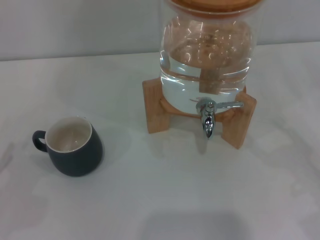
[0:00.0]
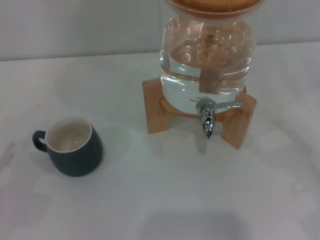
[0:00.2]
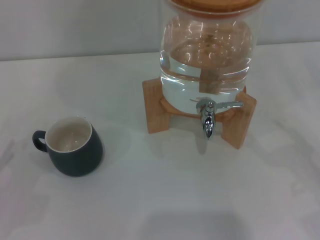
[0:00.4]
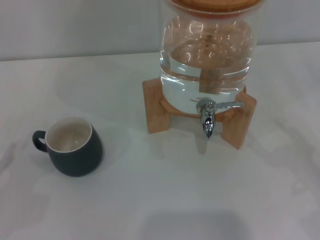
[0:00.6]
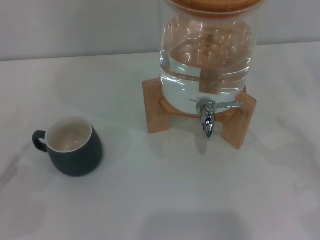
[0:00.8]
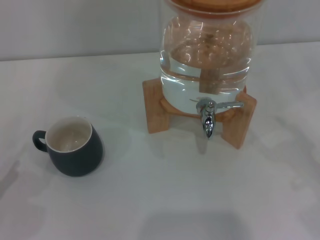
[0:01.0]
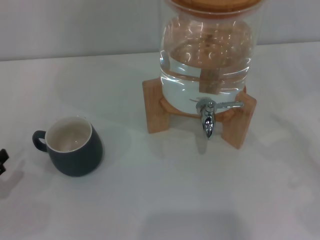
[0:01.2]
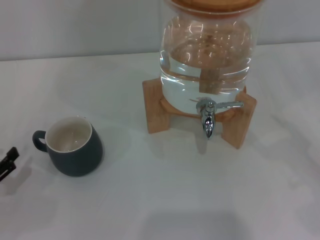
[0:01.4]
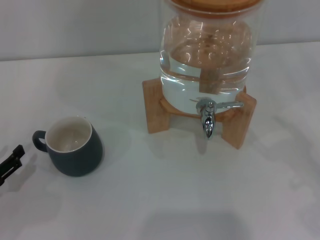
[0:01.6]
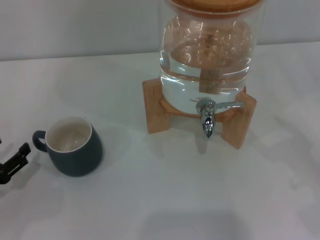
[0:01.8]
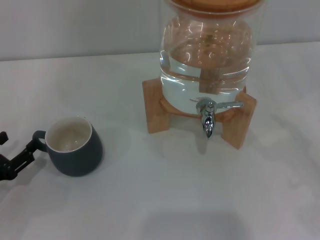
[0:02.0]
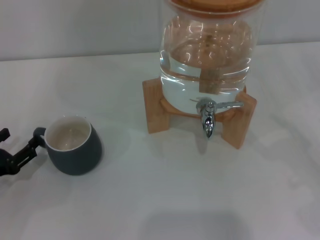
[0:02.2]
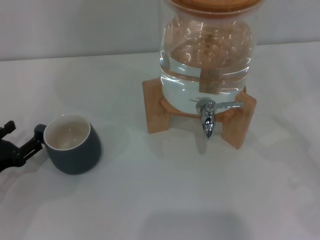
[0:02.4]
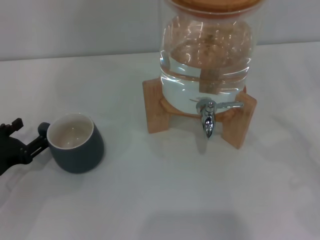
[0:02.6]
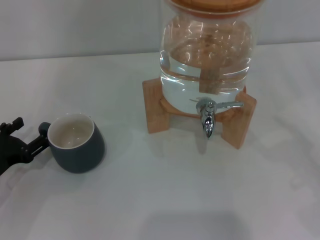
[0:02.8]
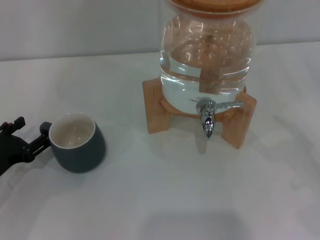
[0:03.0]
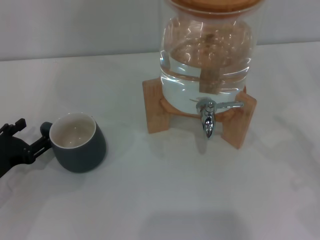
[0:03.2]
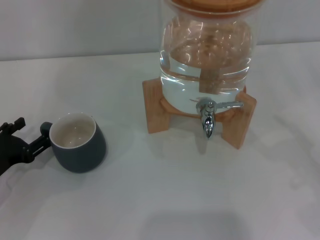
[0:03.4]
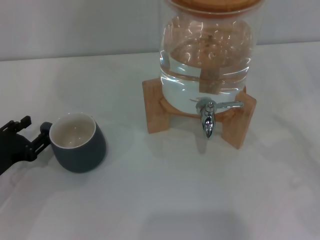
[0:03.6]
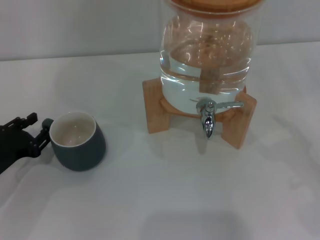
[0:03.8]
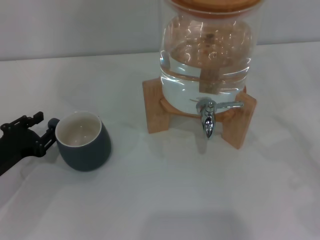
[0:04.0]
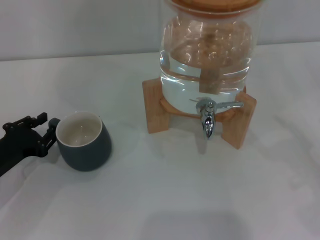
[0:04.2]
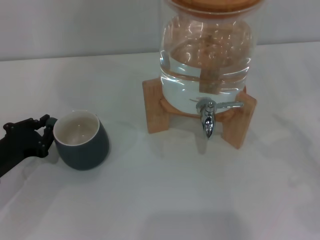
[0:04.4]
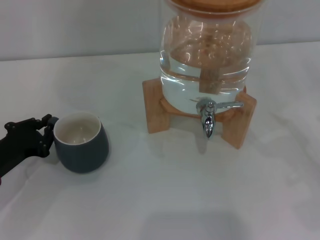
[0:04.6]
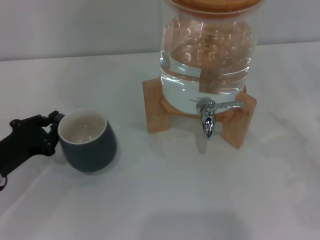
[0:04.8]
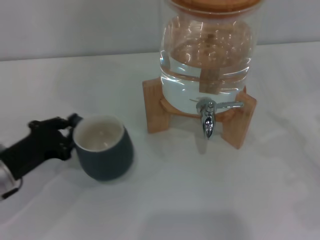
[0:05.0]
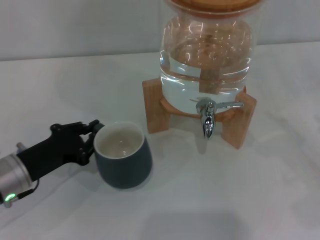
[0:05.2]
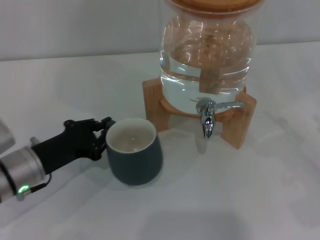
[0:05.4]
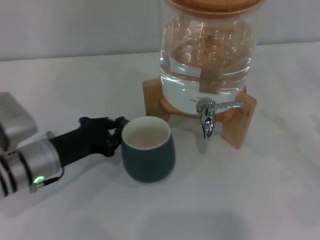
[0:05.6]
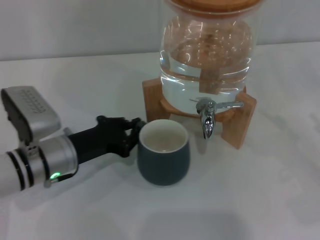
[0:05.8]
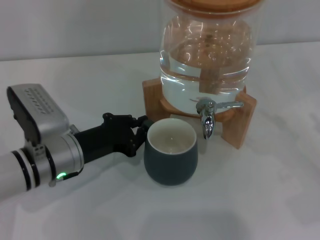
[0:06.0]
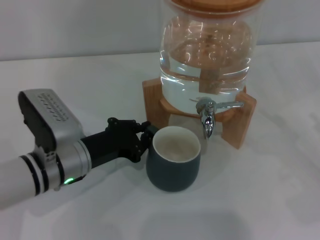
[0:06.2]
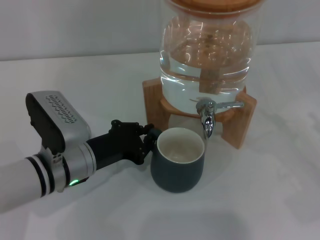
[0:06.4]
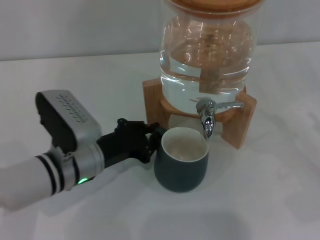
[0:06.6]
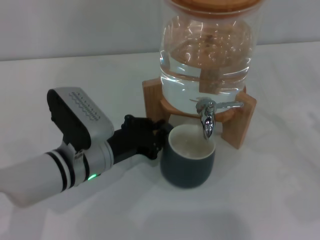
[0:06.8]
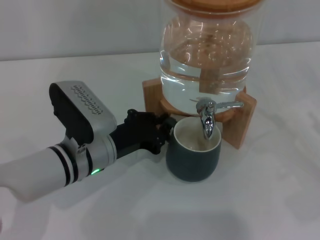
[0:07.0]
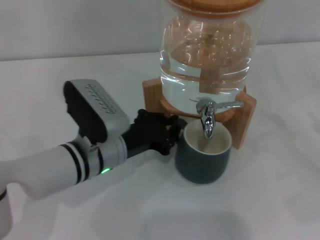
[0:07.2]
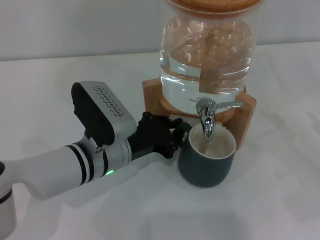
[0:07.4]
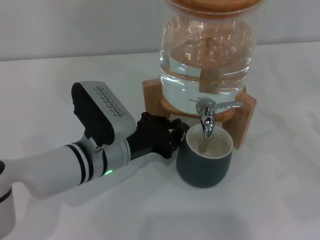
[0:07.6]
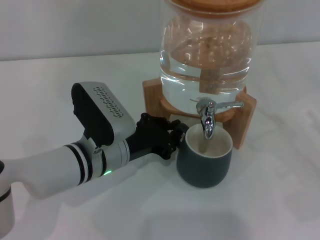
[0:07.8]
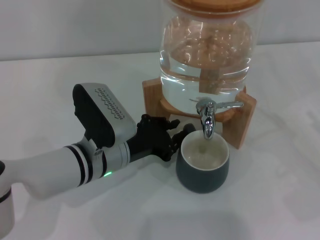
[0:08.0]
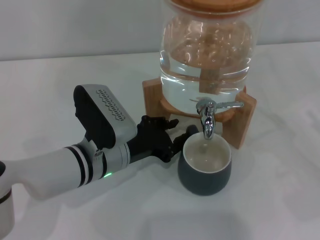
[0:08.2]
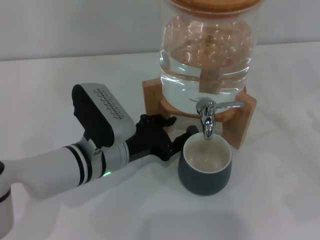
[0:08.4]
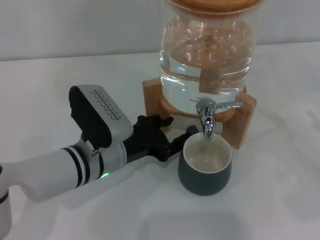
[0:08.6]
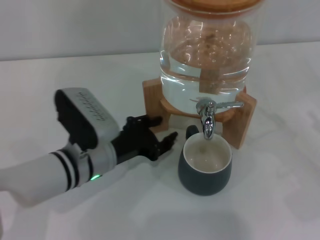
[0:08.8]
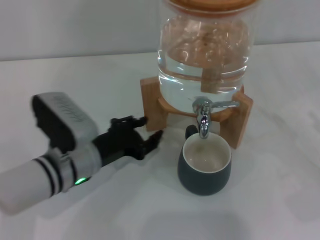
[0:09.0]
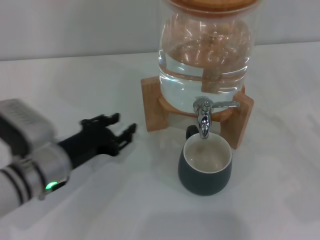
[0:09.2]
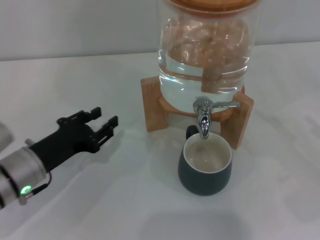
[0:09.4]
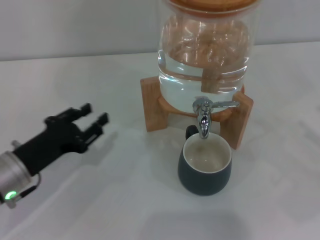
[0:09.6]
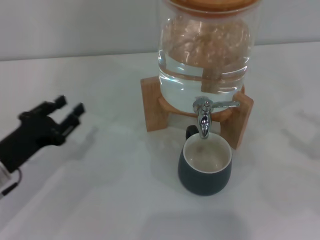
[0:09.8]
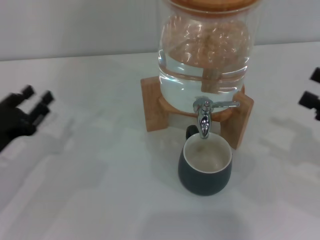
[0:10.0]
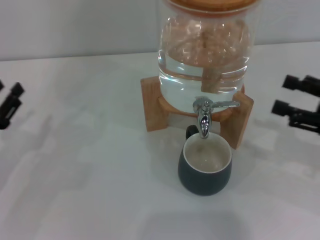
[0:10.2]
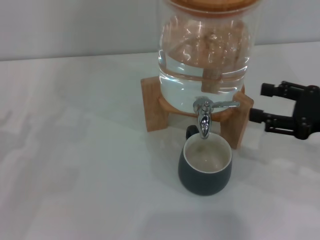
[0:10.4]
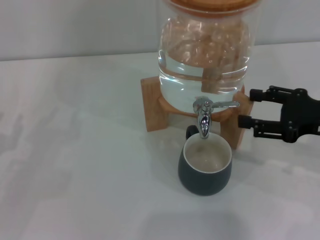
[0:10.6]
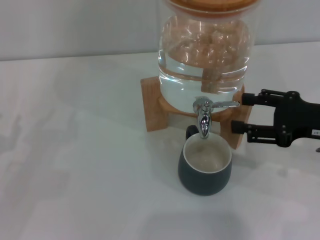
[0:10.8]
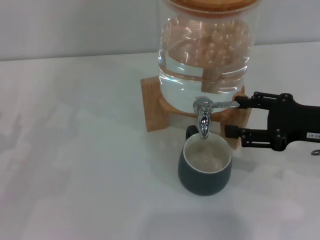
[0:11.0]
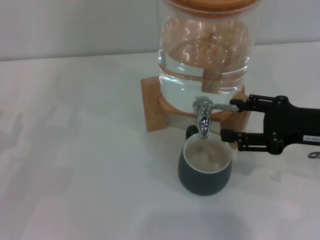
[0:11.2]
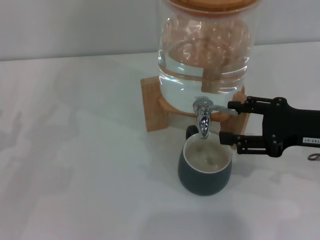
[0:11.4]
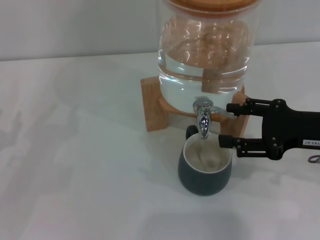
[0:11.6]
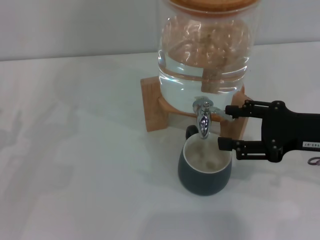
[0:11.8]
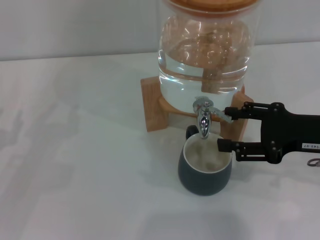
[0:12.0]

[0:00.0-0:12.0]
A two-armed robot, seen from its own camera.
Task of the whole recording: the left gripper pick up the black cup and place it horizontally under the faucet, the right gripper turn on the faucet to fill the cup, and then turn off the faucet.
Step, 0:00.0 to 0:08.8: Move the cup beneath the water dispenser nozzle with the left gripper.
0:00.0 to 0:01.6: The left gripper moves roughly 5 cm.
0:01.6 to 0:03.0: The left gripper ends up about 5 cm from where it was.
0:03.0 to 0:04.4: The left gripper closes up.
0:04.4 to 0:06.0: The left gripper is displaced to the right by roughly 10 cm, and closes up.
0:06.0 to 0:07.6: The left gripper heads to the right, covering approximately 5 cm.
0:07.6 to 0:09.0: The left gripper opens.
0:09.0 to 0:10.4: The left gripper moves to the left, approximately 20 cm; the right gripper shifts approximately 10 cm to the left, forward and upward.
0:10.4 to 0:12.0: The grippers move only a little.

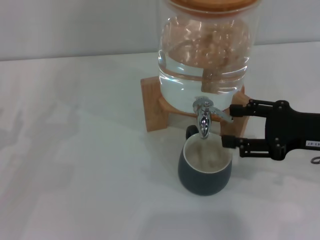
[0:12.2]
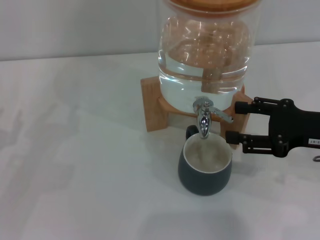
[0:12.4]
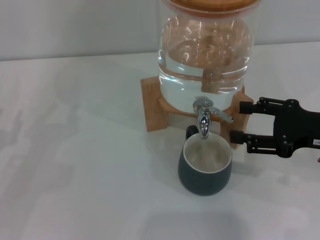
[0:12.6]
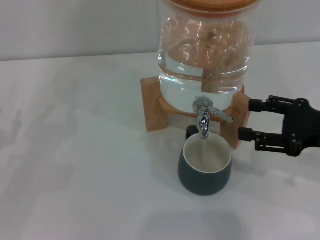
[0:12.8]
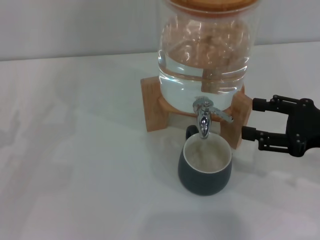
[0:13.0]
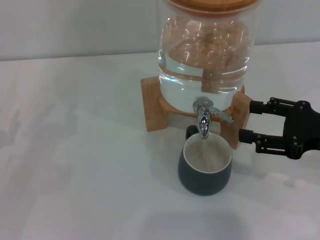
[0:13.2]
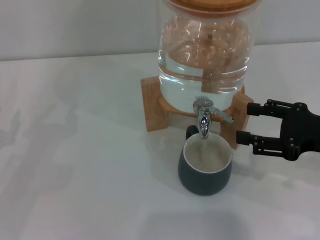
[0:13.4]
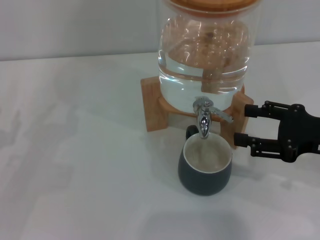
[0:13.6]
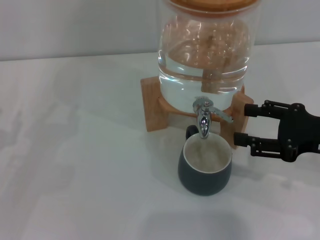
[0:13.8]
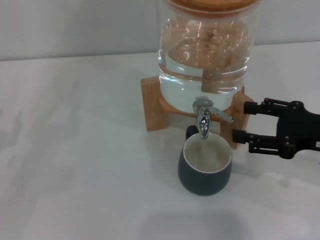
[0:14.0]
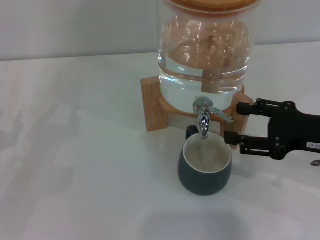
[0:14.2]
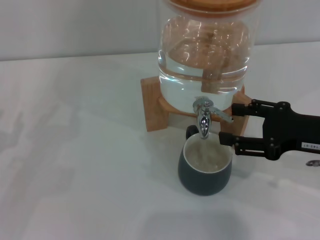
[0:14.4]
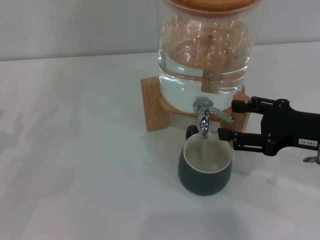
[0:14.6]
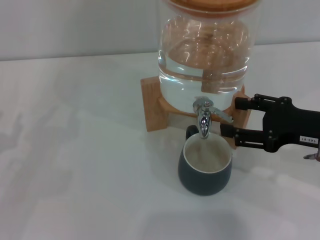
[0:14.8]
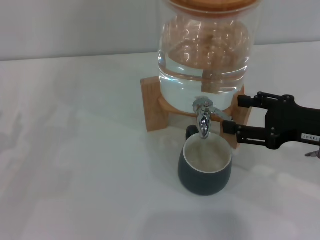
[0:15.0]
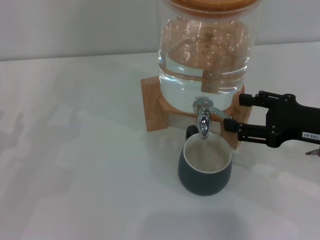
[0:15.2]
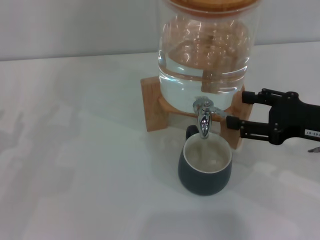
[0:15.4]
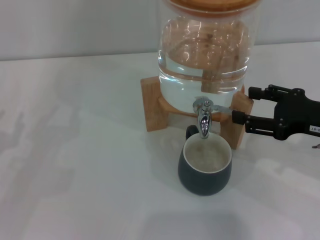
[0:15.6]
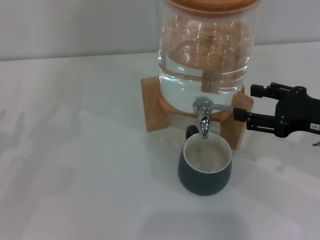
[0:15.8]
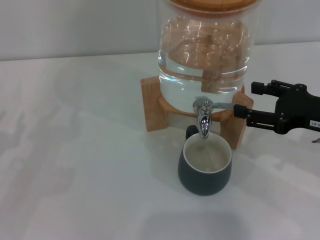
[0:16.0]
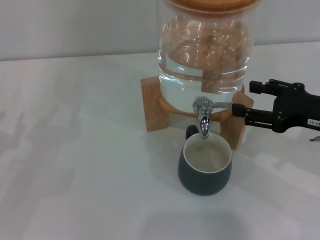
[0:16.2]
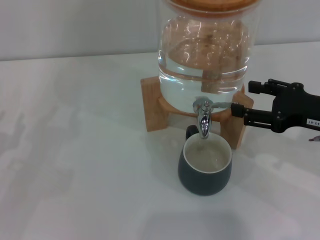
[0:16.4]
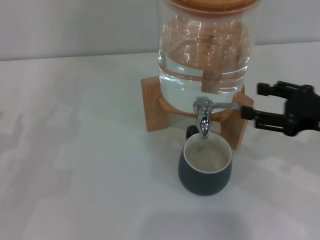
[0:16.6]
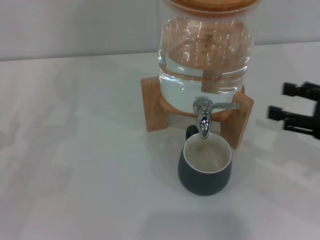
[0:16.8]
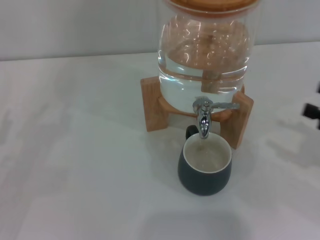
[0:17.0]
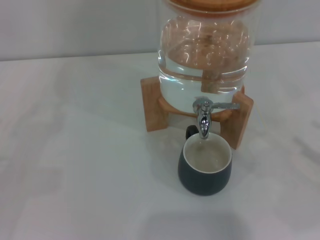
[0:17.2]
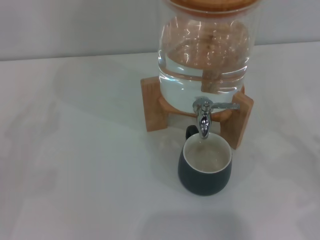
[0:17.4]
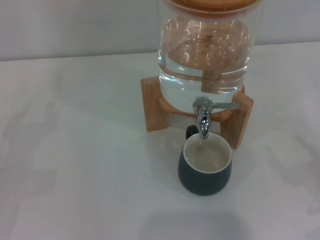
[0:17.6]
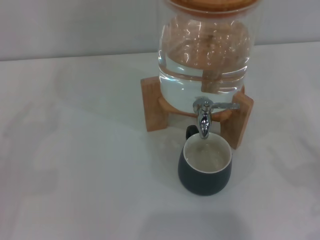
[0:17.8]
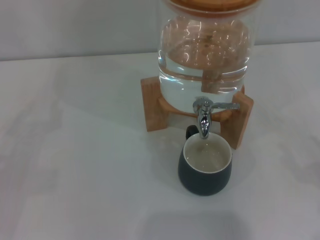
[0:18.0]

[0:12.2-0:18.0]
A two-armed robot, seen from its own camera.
Task of the whole recording: the left gripper pick up the black cup and place it horizontally under the faucet, the right gripper turn on the faucet to fill the cup, and then turn off the faucet.
Step, 0:12.6 to 0:16.4: Close the dispenser valve with the right gripper.
0:12.2 to 0:16.6: The grippers stay close to where they were, moving slightly.
0:16.6 to 0:18.0: The right gripper travels backward, to the right and downward by some 20 cm.
